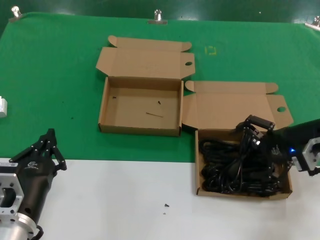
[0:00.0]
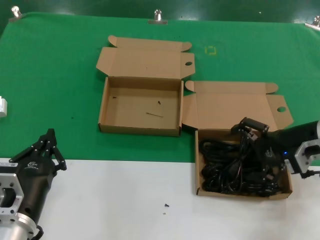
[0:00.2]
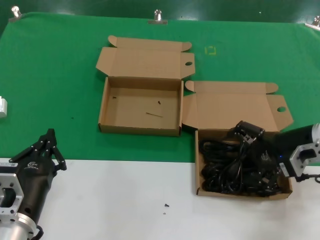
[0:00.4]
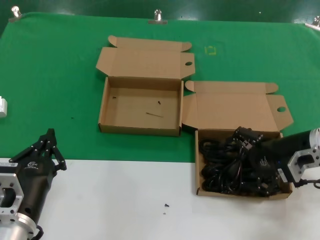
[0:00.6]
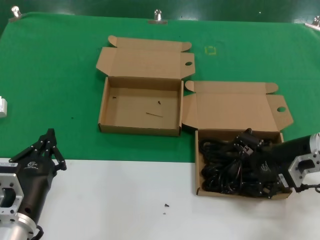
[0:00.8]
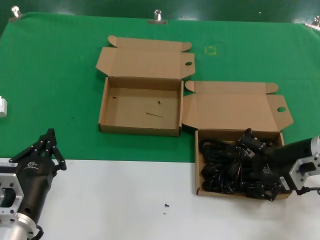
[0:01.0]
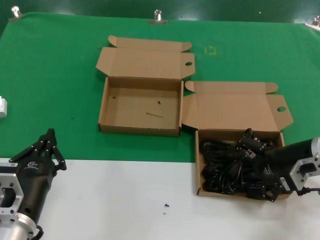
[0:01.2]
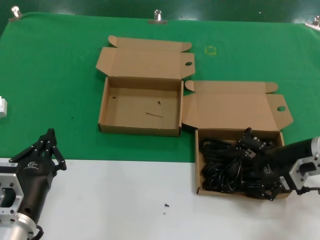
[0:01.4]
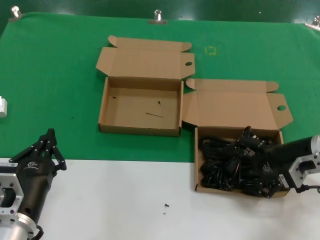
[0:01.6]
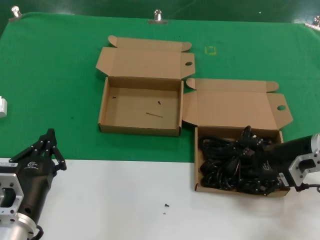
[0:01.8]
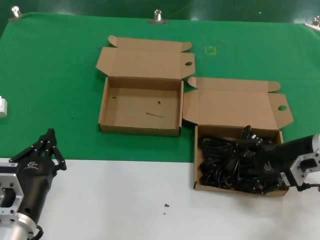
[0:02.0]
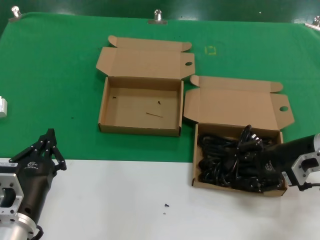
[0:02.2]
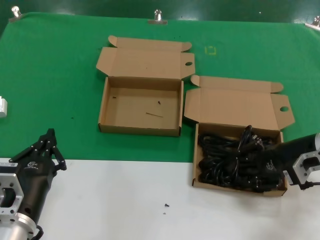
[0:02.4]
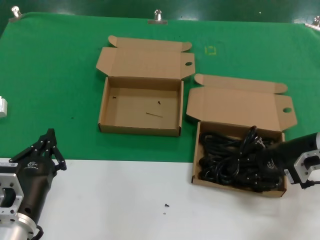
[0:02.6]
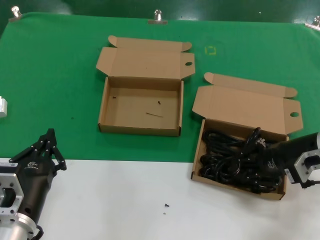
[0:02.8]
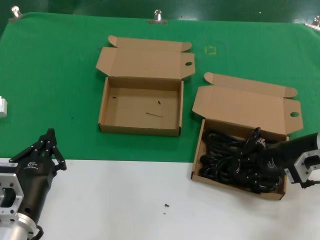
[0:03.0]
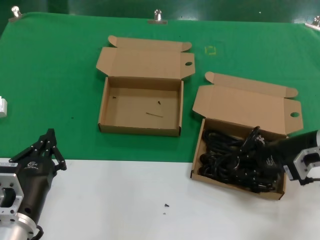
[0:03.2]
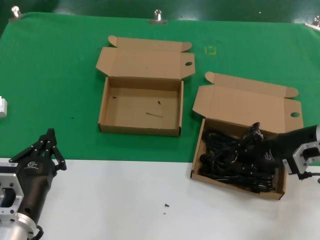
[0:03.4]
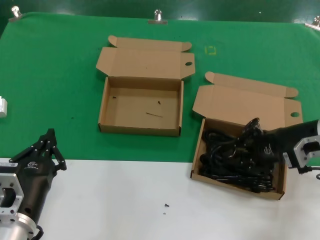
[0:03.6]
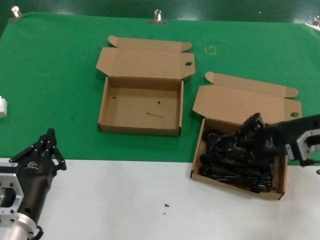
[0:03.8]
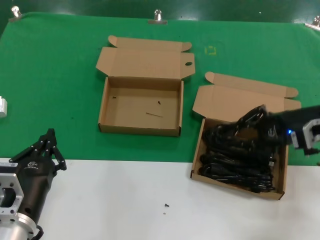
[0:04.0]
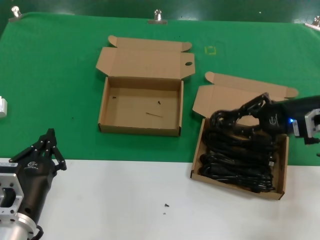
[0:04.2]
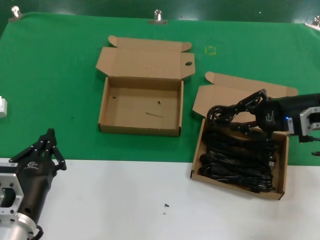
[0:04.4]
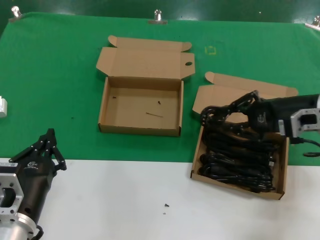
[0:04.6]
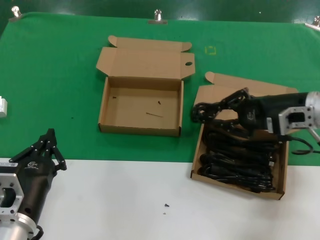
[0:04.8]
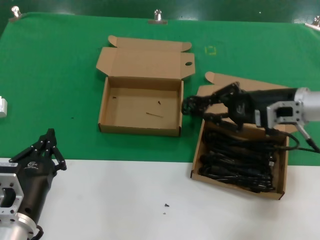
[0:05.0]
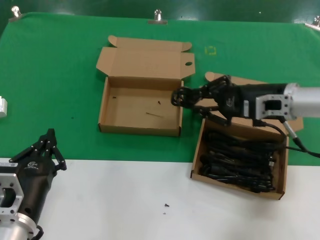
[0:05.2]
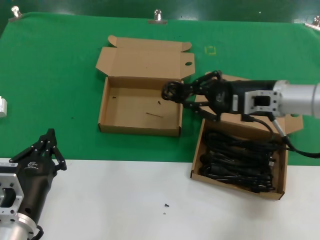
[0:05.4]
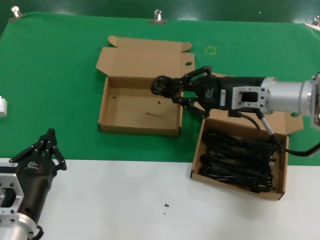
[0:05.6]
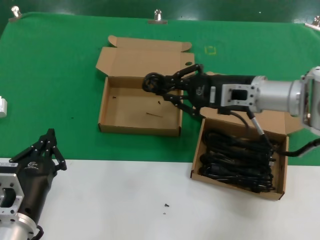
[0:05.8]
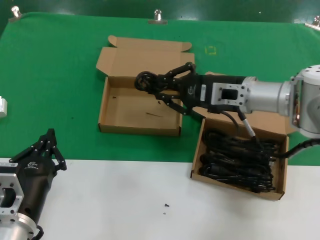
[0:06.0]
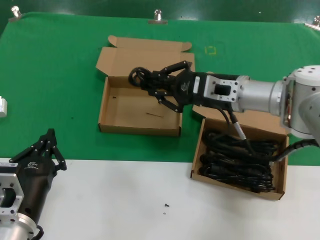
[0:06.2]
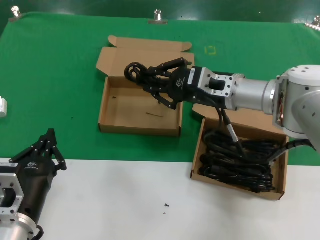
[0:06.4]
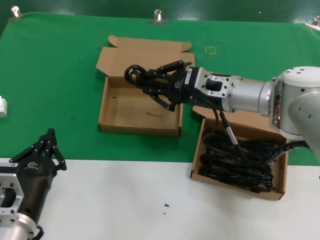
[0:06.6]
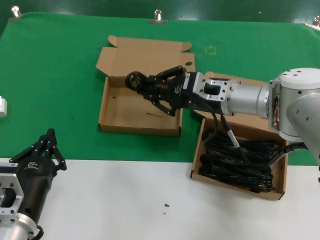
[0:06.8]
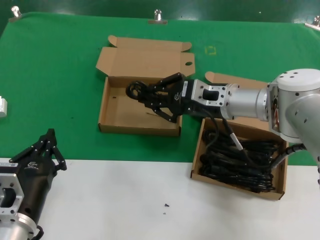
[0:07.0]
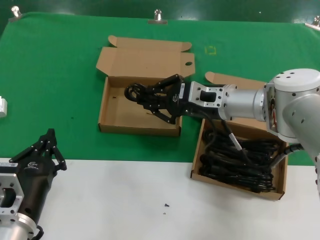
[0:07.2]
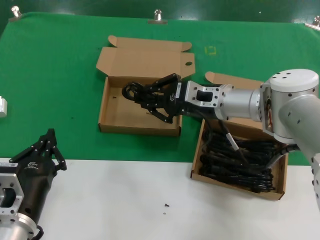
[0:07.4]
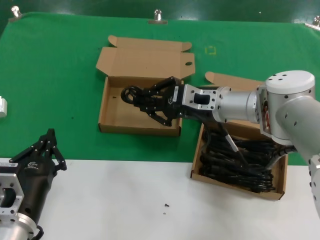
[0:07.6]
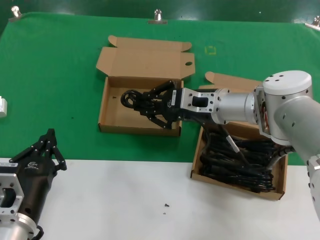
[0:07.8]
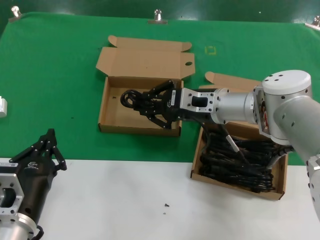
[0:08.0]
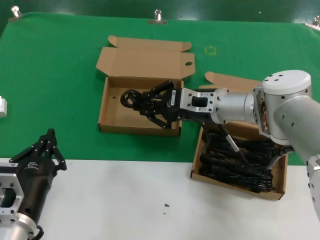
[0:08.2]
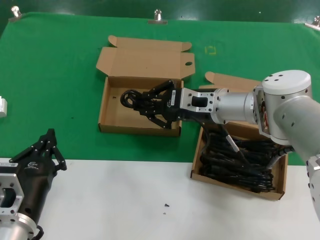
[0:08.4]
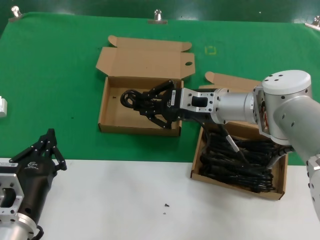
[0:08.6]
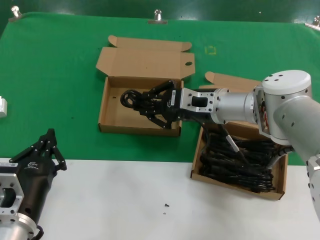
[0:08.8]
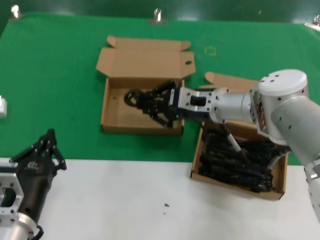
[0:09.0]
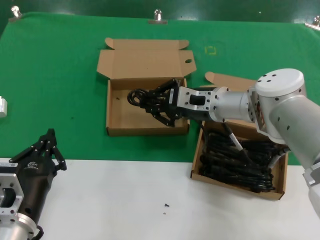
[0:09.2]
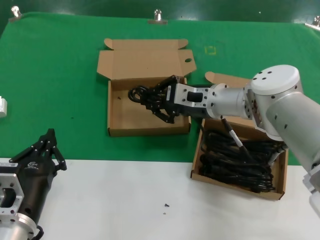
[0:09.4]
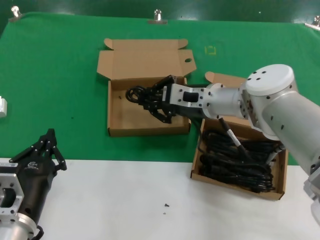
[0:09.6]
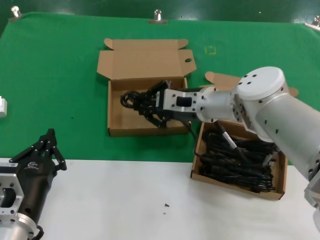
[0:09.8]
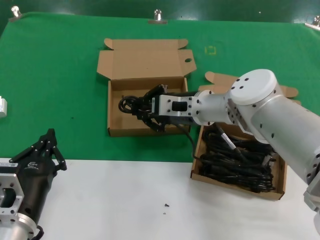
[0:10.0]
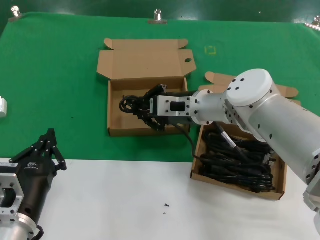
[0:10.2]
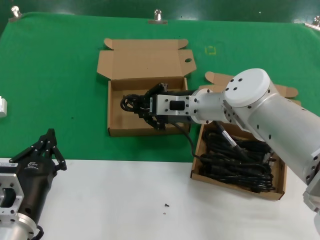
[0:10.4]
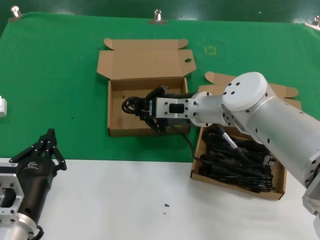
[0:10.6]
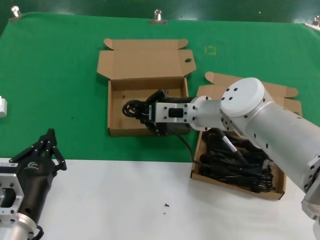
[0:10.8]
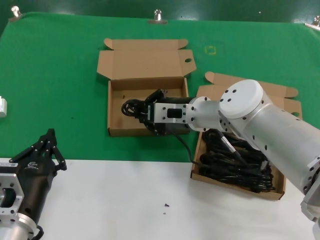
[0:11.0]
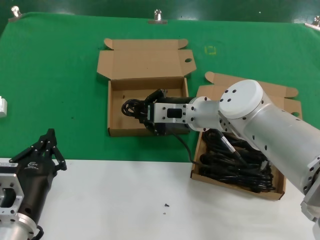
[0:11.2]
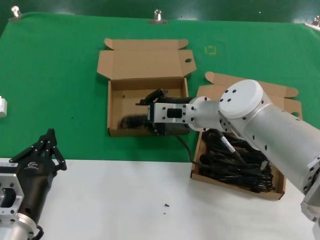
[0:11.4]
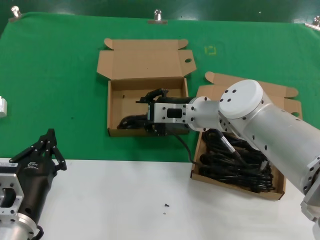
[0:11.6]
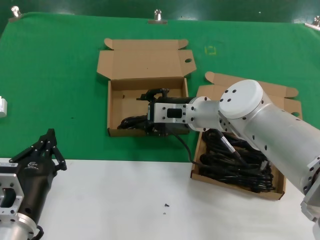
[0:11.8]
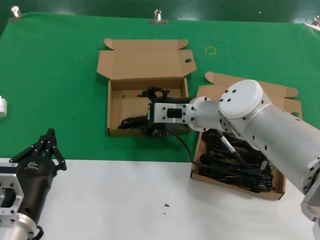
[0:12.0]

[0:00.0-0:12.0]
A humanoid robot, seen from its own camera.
Task of the whole recording: take the parts from the box containing them and put them into an empty box.
Step, 0:00.0 to 0:02.6: Grasp the data cable.
Step, 0:02.8 to 0:11.4: Place the data cable in the another box.
0:00.0 to 0:01.6: The hands move only a little.
0:01.6 to 0:03.0: Both hands stay put.
0:03.0 to 0:04.4: The right hand is displaced upward by roughly 5 cm.
0:04.4 to 0:06.0: The right hand heads to the left, covering some 15 cm.
0:06.0 to 0:07.6: The right hand moves to the left, approximately 5 cm.
0:07.6 to 0:09.0: Both hands stay put.
0:09.0 to 0:12.0: The hands move only a little.

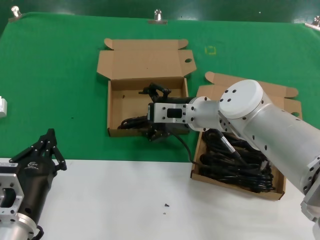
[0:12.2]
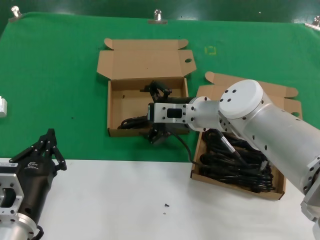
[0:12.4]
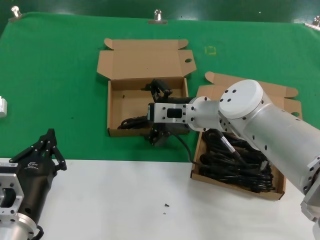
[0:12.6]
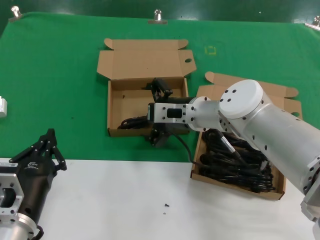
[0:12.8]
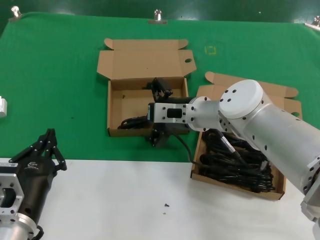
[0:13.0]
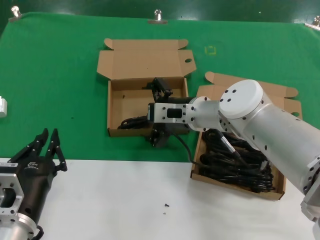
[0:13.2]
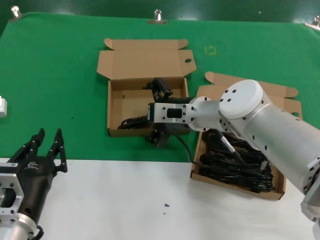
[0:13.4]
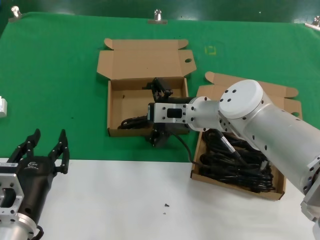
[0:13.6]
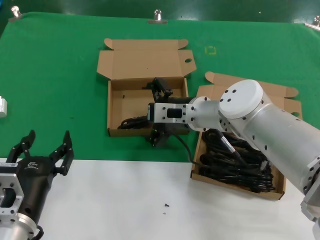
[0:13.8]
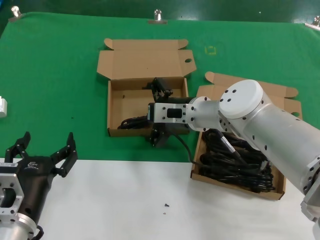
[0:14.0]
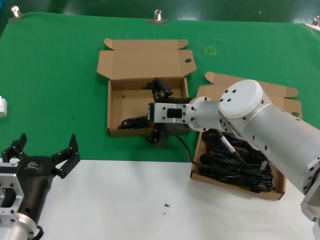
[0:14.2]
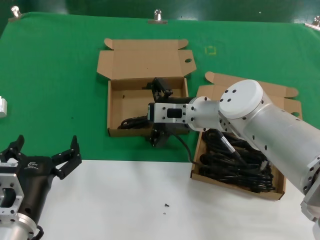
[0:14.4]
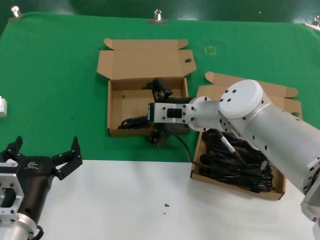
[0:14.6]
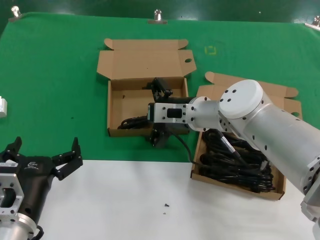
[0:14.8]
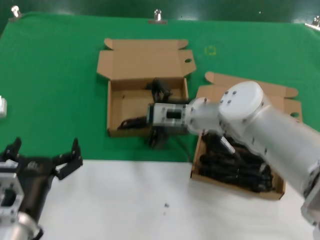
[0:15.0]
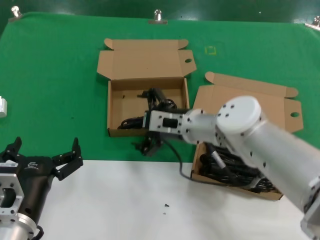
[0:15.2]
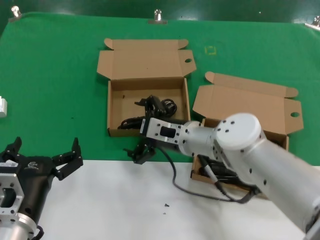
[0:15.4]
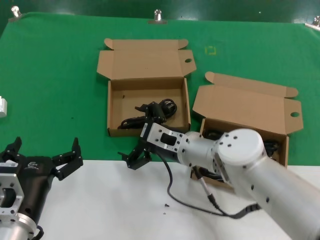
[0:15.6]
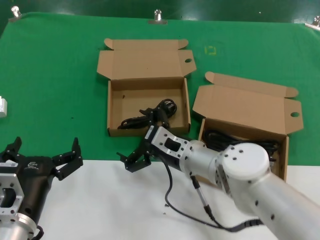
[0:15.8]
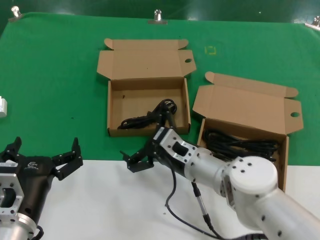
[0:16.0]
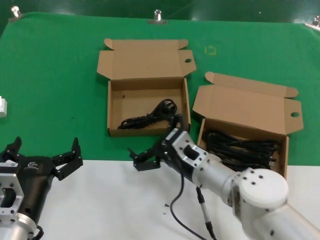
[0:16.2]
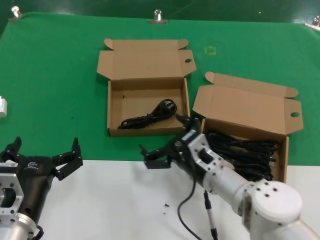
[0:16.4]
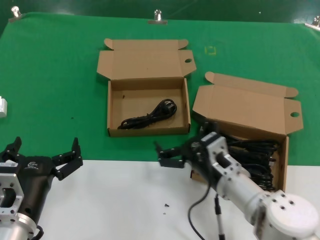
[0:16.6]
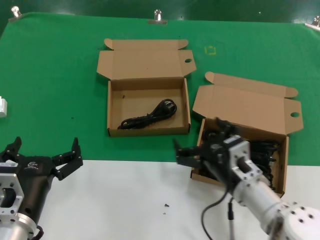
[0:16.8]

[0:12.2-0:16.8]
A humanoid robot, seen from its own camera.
Task of the whole recording: take the parts from the box containing them and put them into an empty box.
0:12.2 to 0:13.8: Both hands stay about where they are.
0:13.8 to 0:15.2: There are only small adjustments of the hands.
0:15.2 to 0:16.8: The right hand goes roughly 20 cm backward, downward and to the right.

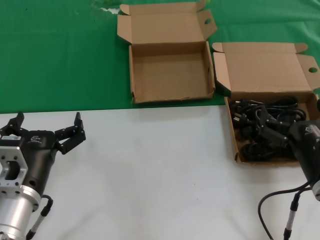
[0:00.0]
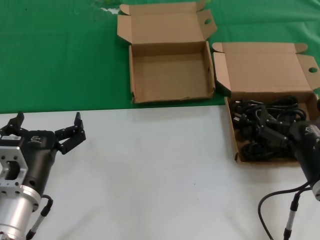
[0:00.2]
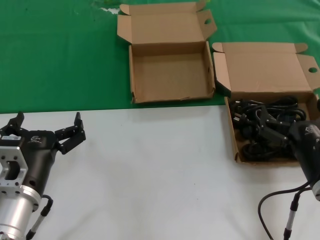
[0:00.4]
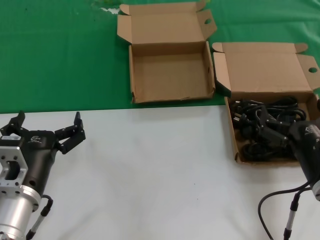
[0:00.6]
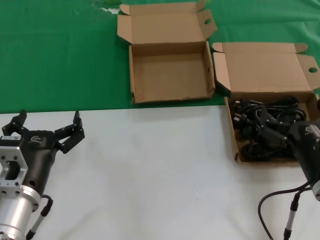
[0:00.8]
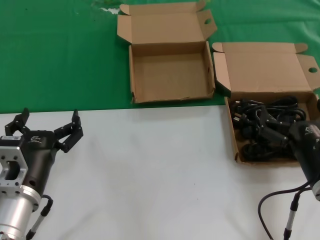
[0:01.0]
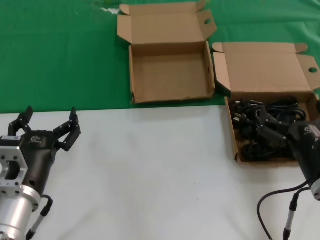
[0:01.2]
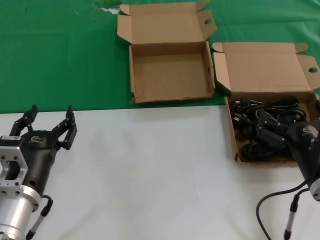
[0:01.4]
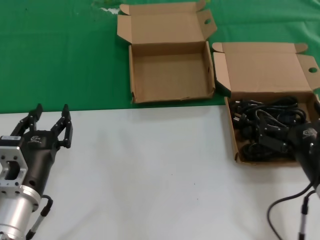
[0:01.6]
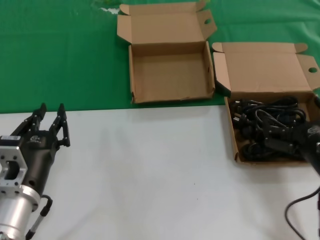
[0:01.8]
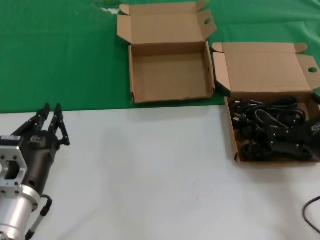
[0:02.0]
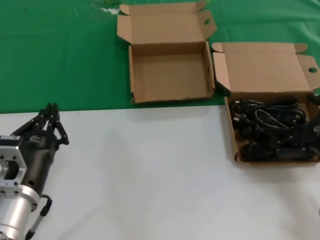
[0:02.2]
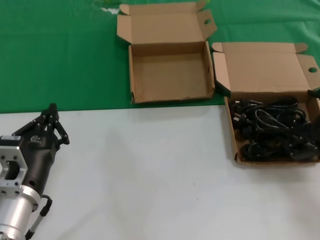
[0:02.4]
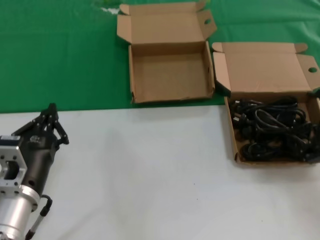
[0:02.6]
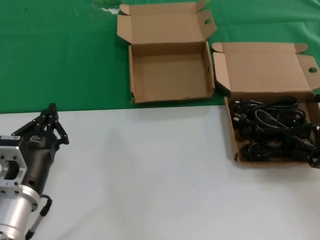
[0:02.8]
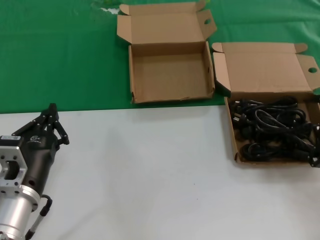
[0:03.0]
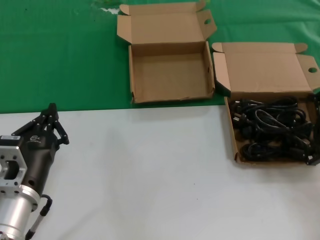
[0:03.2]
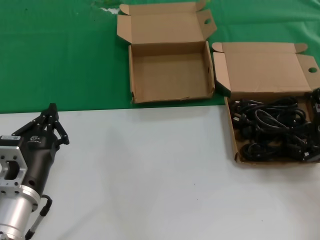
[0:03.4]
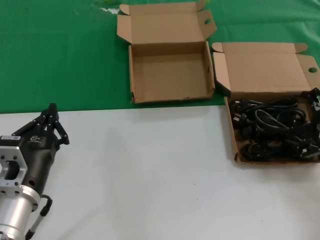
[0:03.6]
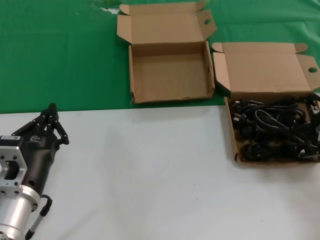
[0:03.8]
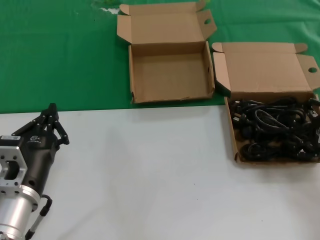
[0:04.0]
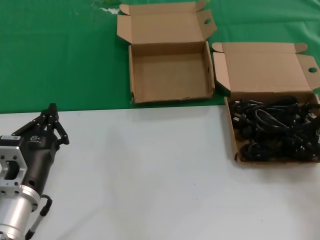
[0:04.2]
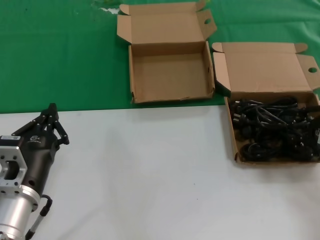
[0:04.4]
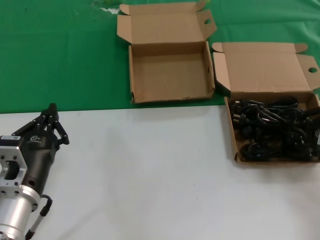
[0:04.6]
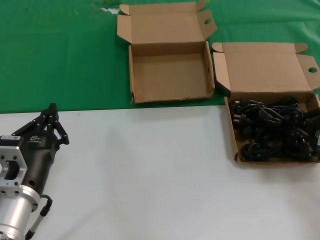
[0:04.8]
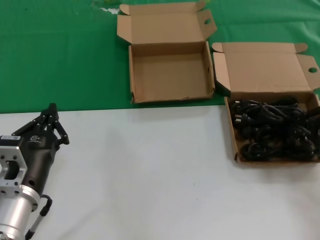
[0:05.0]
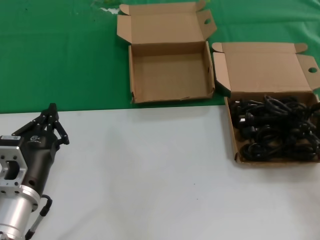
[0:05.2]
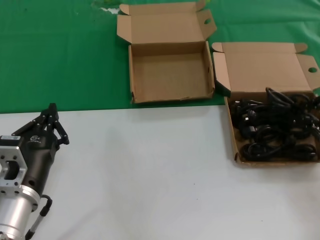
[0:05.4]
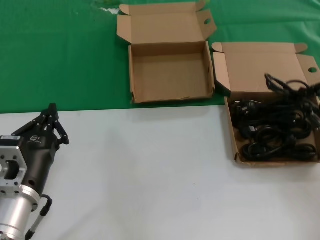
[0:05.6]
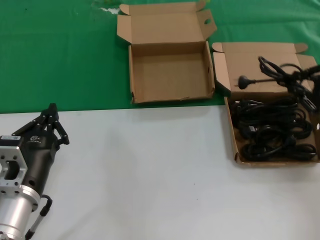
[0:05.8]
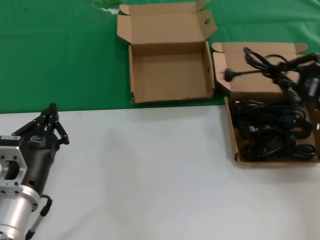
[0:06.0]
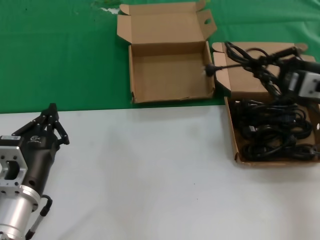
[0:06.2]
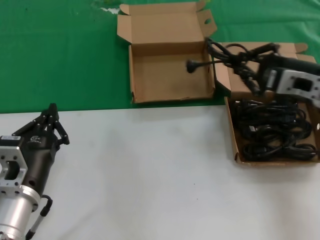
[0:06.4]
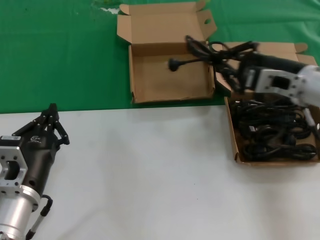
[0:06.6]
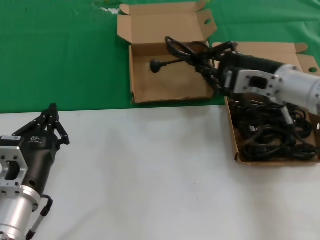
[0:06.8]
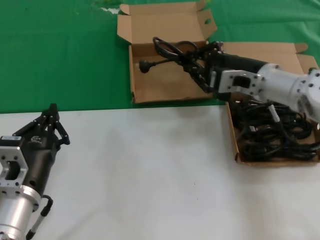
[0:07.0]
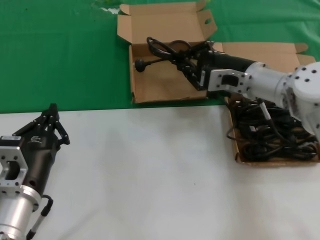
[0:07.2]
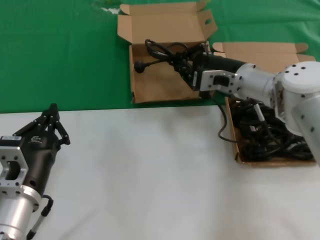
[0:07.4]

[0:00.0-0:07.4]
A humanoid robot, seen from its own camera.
Task of the whole recording: take the parts from the box containing them and put them into an empty box.
Step, 0:00.0 to 0:04.8: Grasp the data cable.
0:00.0 to 0:01.4: Both hands stay put.
0:01.4 to 0:03.0: The right hand heads to the right, upward and forward, covering approximately 20 cm.
0:04.4 to 0:06.0: The right hand is displaced upward by about 10 cm.
0:06.0 to 0:07.4: The right hand shifts approximately 20 cm to the left and forward.
